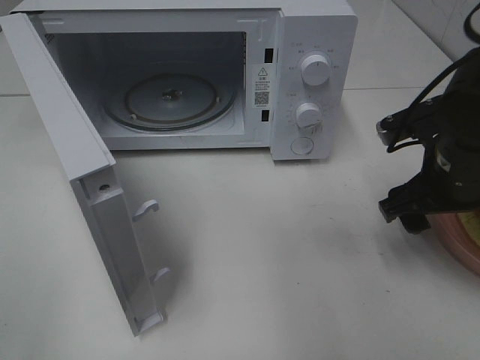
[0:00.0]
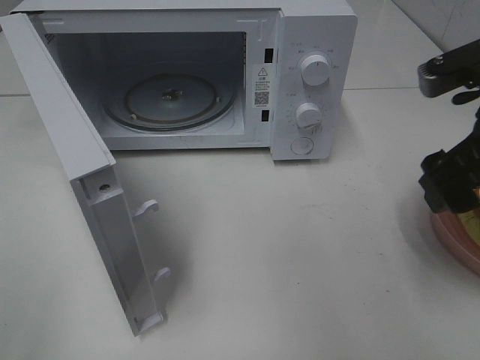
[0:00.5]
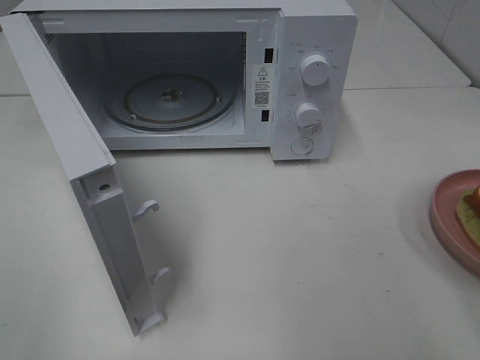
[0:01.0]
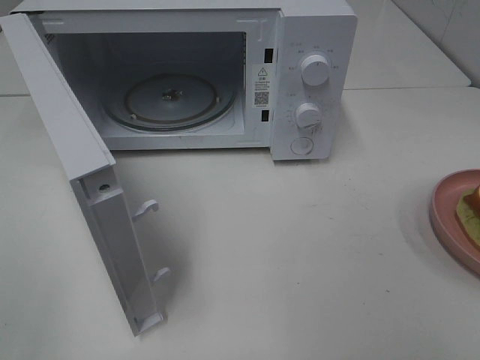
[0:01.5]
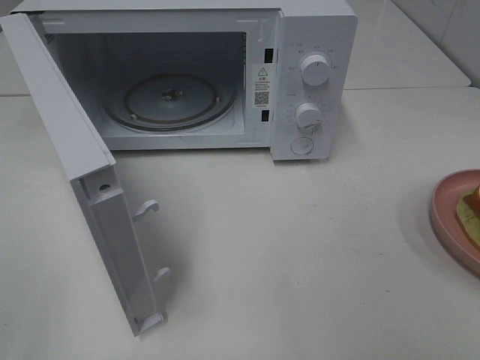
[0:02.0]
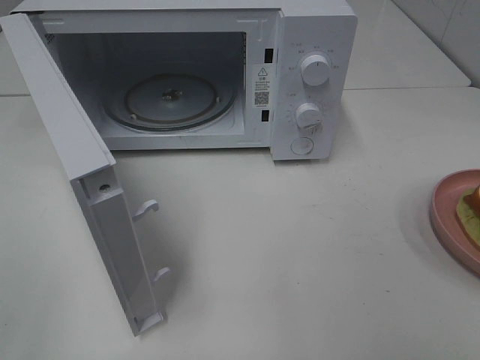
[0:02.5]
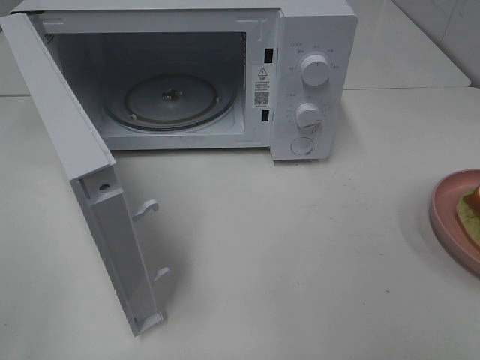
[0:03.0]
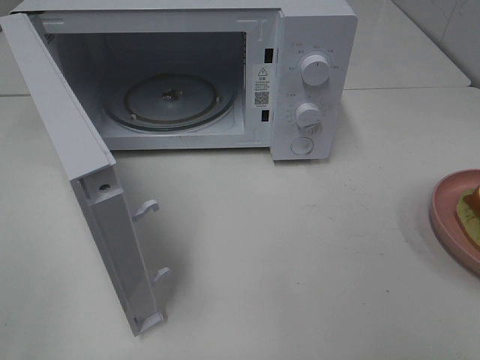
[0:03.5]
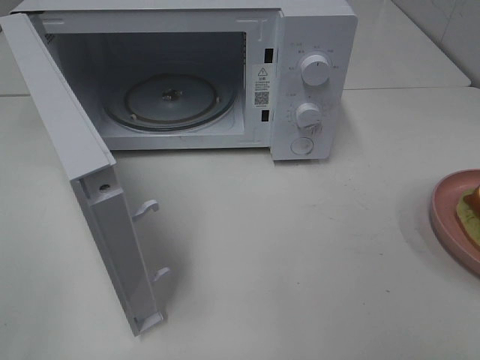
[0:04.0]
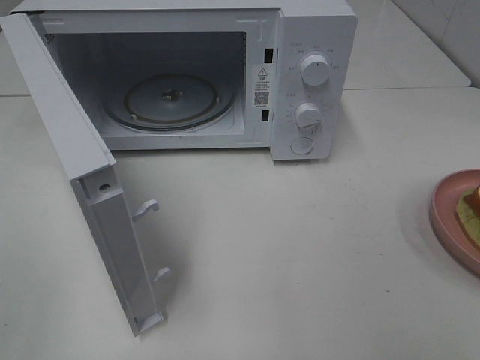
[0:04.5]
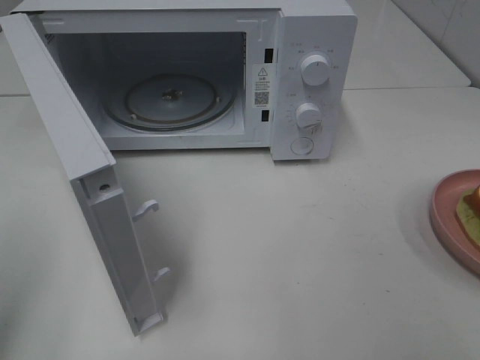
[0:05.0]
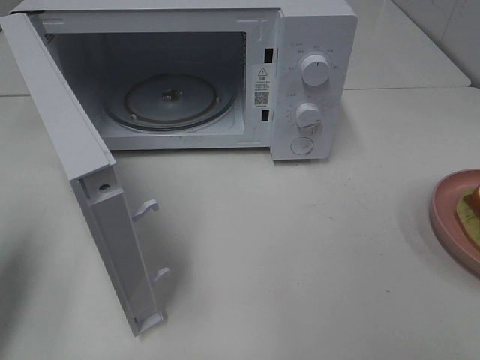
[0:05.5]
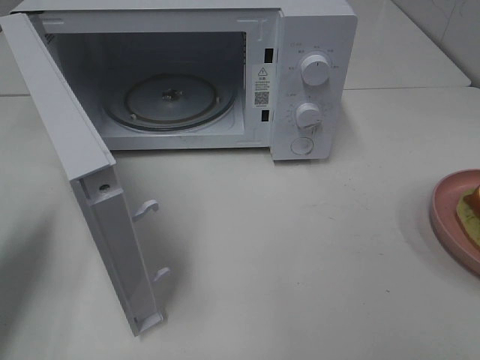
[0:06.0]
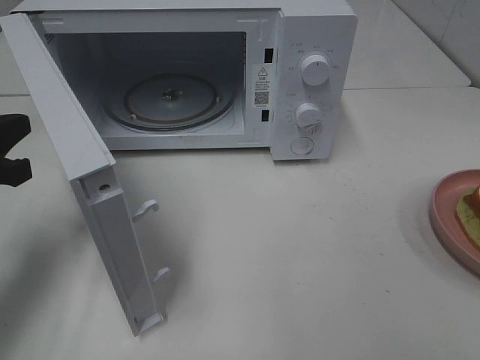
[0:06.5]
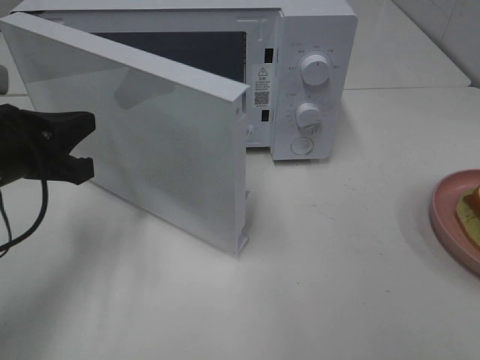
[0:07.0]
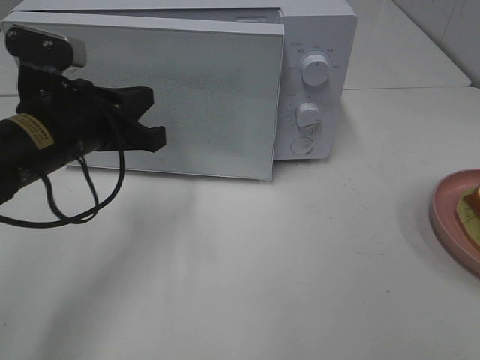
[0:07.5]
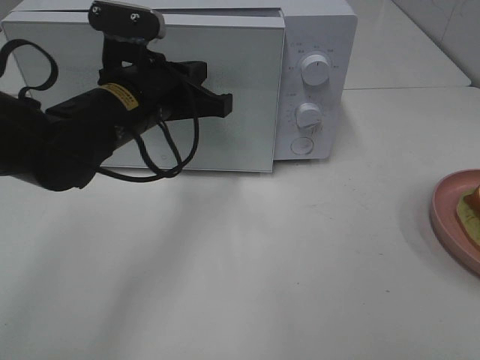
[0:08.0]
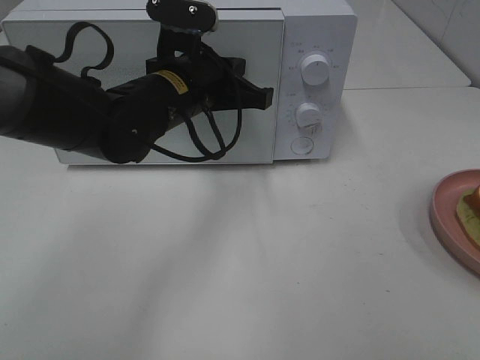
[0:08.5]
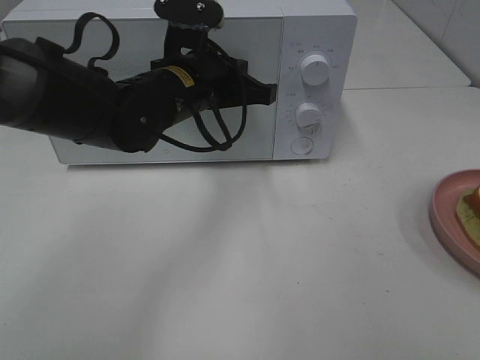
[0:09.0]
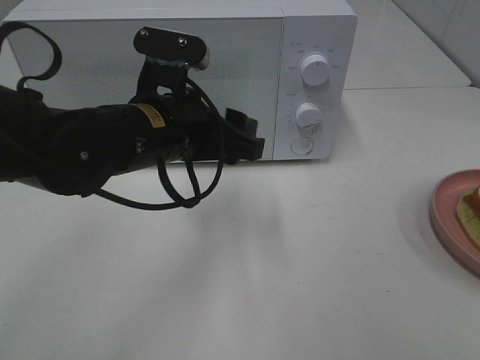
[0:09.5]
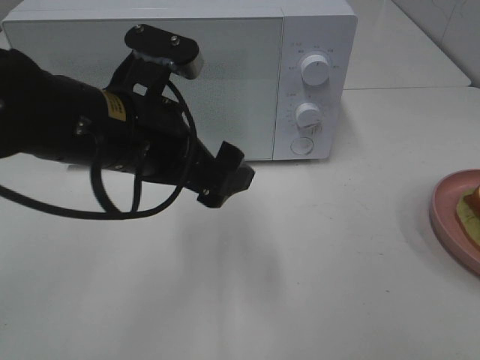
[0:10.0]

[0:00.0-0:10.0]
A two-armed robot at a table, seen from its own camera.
Task of the whole recording: Heat Sandwich.
Step, 0:01.5 to 0:09.5: Left hand: close the microwave door.
0:00.0 to 0:02.0: The right gripper goes approximately 30 cm backward and upward.
0:04.0 to 0:06.0: The left gripper goes about 25 cm forward and downward, and closes its fingers.
0:06.0 to 0:08.0: The left gripper shifts some 25 cm to the right and forward.
0:08.0 to 0:10.0: The left gripper travels backward by roughly 10 cm, and opens up.

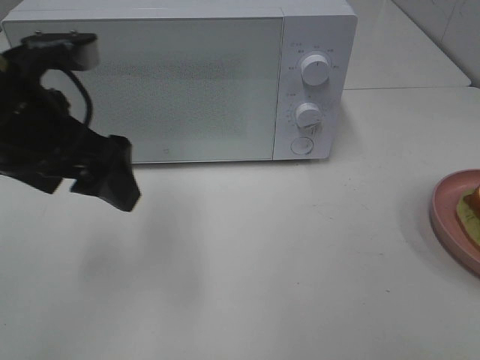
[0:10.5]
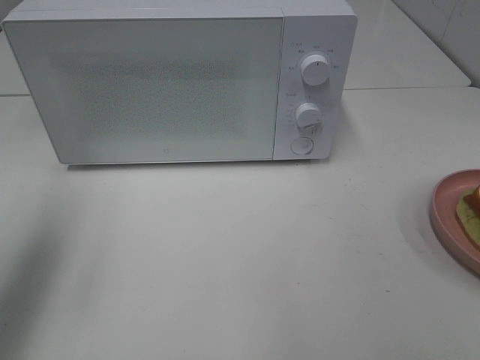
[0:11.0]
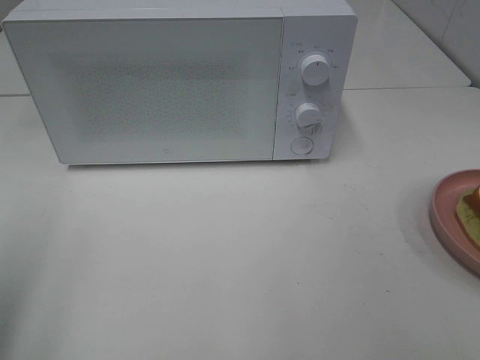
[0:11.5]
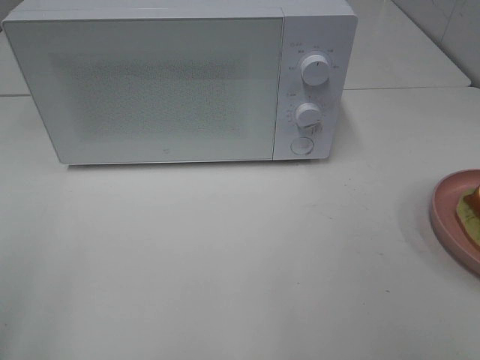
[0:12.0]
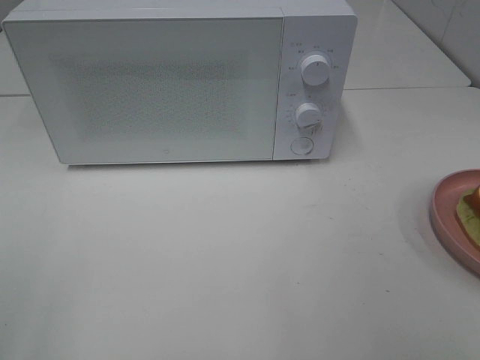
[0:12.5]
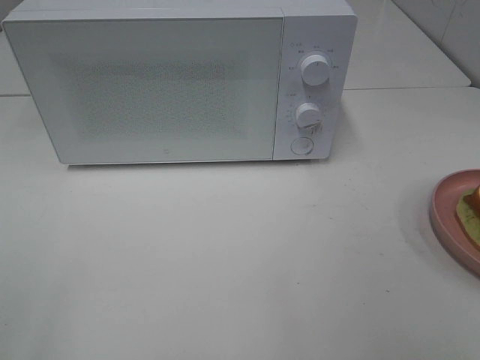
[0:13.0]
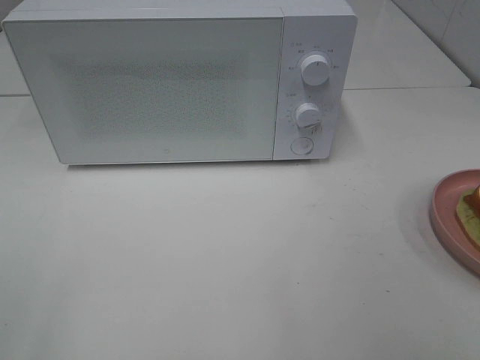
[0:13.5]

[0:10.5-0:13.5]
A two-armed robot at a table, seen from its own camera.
Task of the whole recording: Heat Sandwich.
0:10.5 to 0:12.0: The left gripper shifts roughly 25 cm backward and to the left.

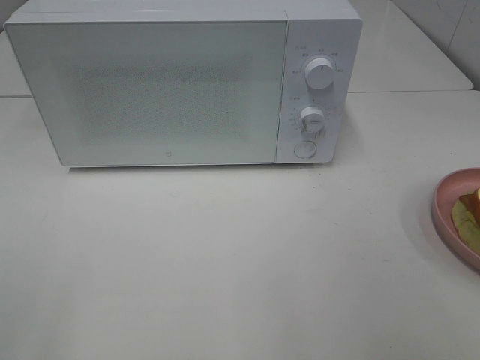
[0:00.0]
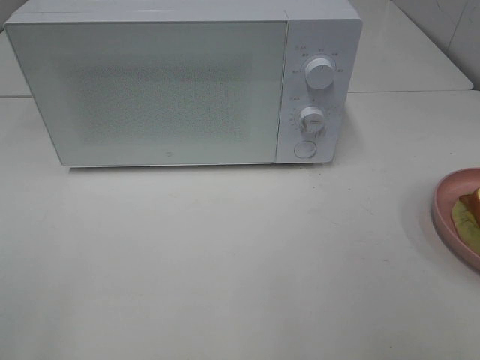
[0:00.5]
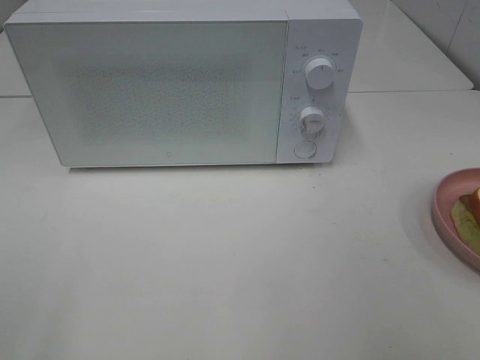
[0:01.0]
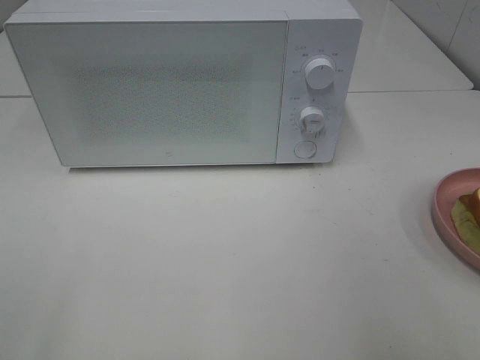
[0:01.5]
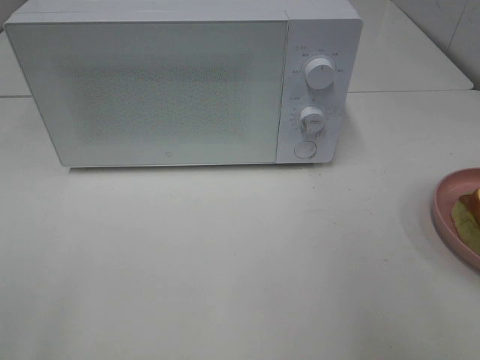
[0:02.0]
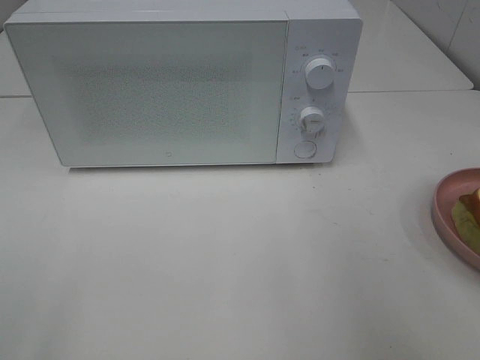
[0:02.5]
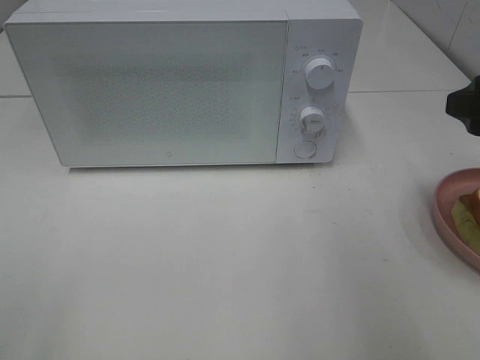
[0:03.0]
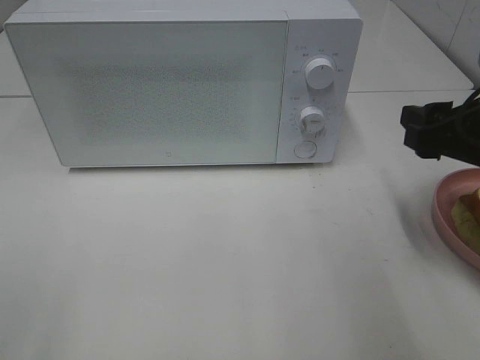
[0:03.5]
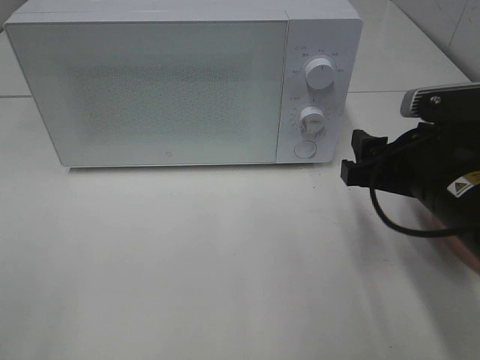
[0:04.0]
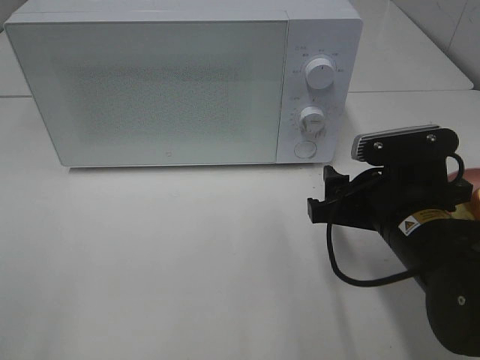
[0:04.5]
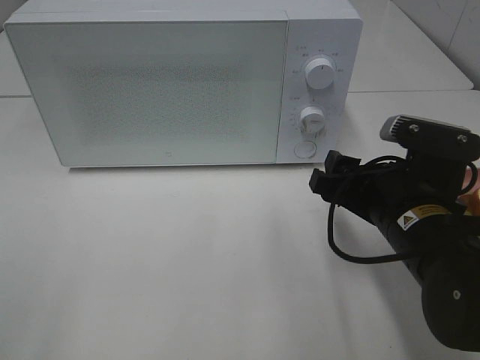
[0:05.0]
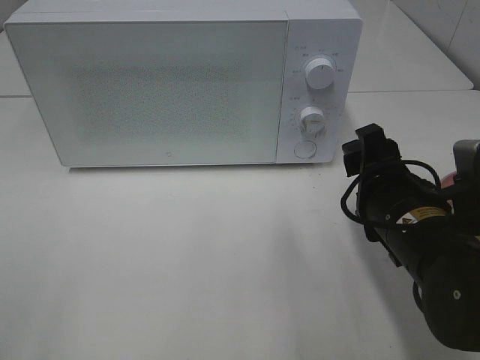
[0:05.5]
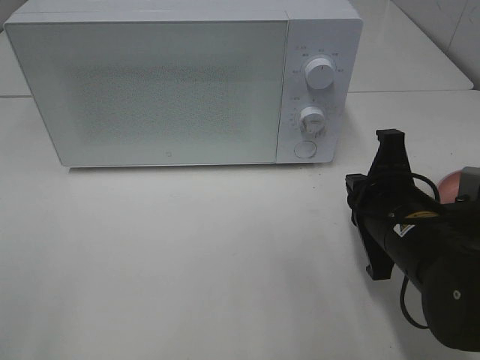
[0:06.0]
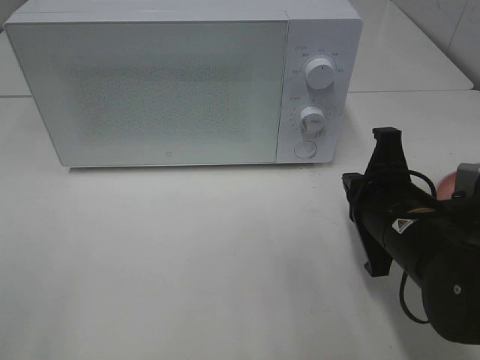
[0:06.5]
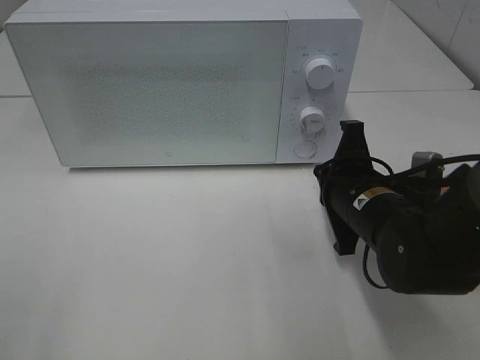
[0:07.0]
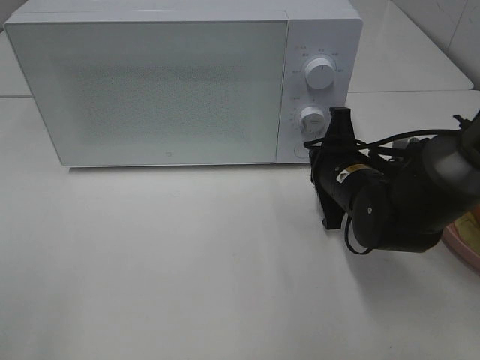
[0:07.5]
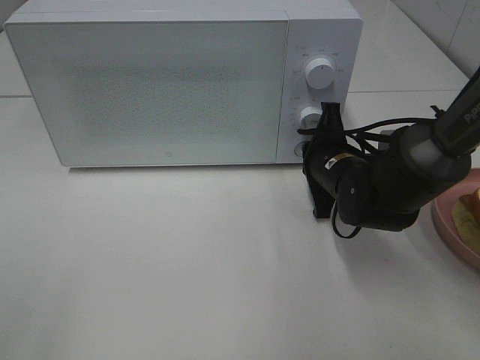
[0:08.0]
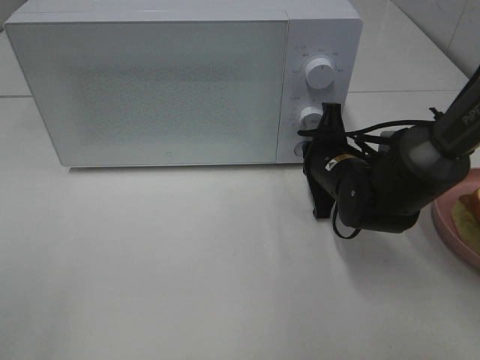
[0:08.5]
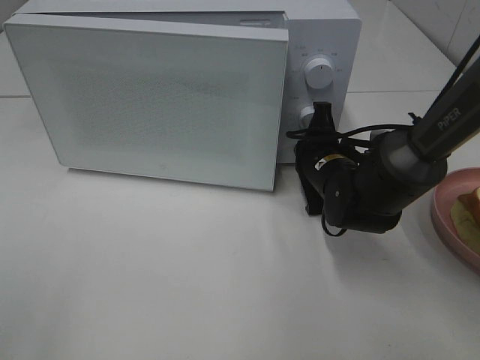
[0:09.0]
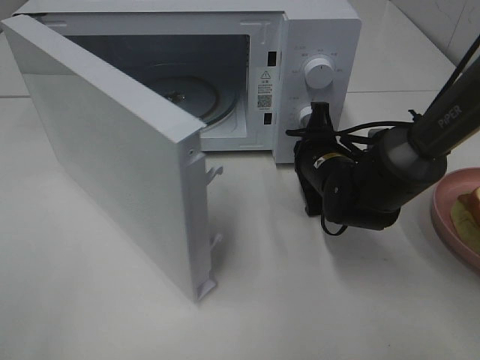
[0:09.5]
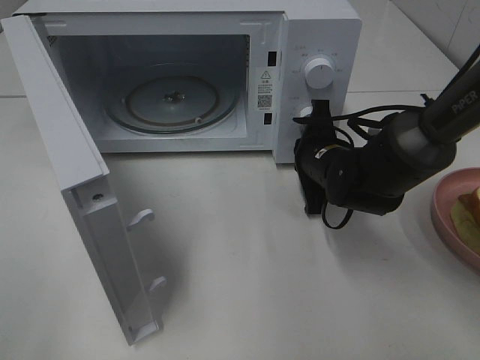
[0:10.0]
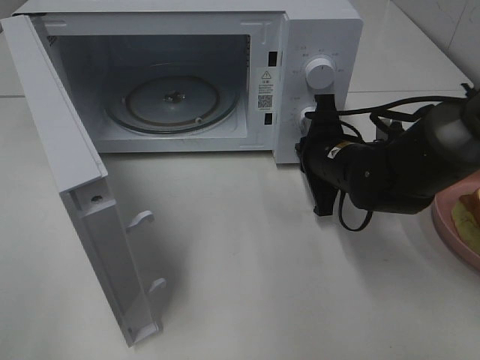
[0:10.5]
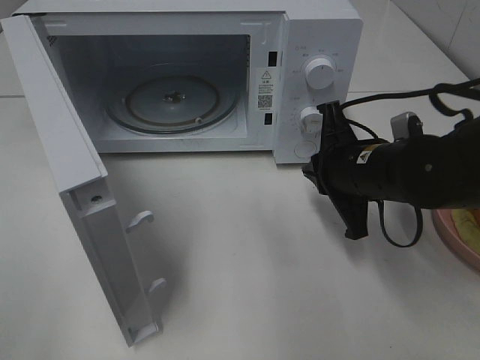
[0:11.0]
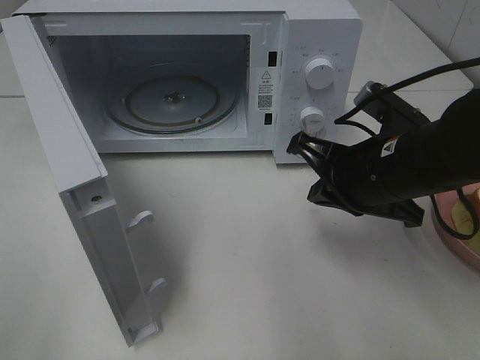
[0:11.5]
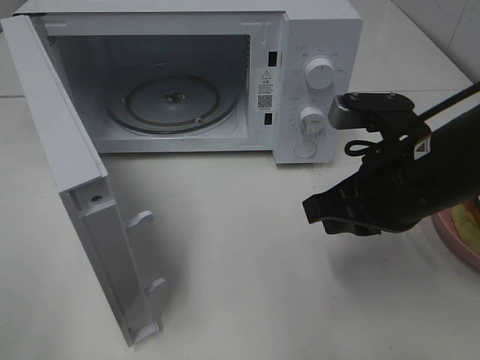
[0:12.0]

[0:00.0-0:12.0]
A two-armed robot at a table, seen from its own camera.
Task of the whole recording: Heat Sandwich.
Step, 0:00.0 to 0:10.5: Right hand: press the switch.
0:02.0 to 0:04.0: The right gripper heads downward, forward and to the left, covering about 20 cm.
0:04.0 to 0:06.0: The right gripper moves approximately 5 cm, and closes.
0:06.0 to 0:08.0: The right gripper heads forward, covering some 15 cm.
0:10.0 to 0:12.0: The right gripper is displaced backward and upward by some 20 cm.
